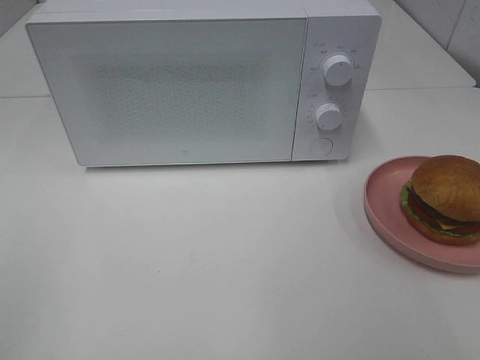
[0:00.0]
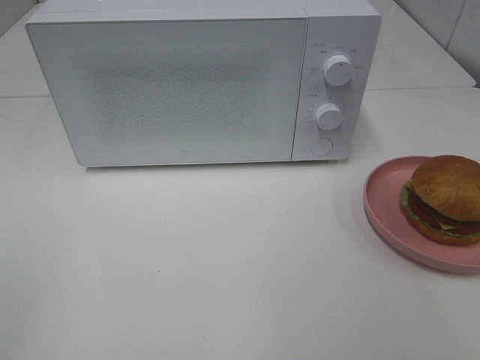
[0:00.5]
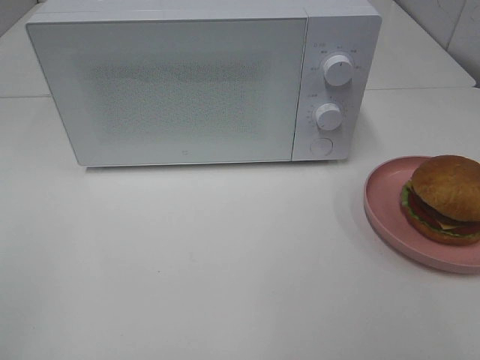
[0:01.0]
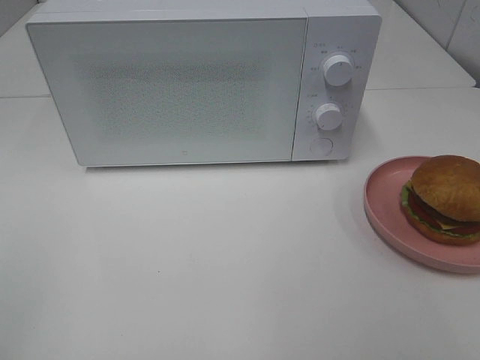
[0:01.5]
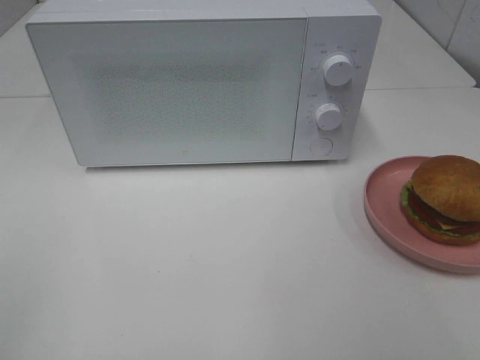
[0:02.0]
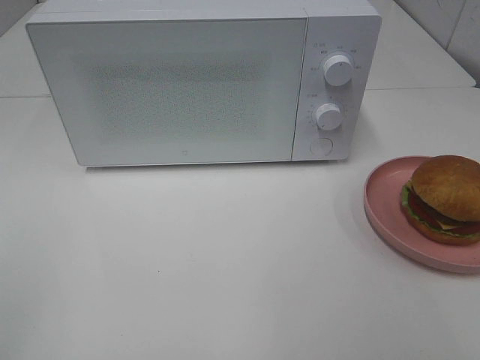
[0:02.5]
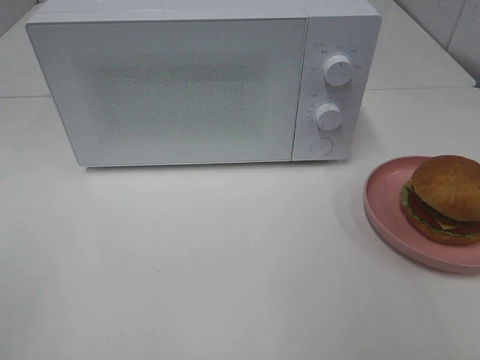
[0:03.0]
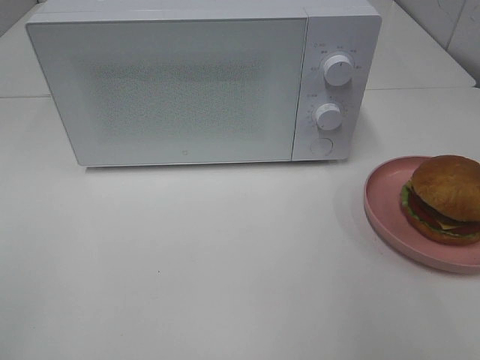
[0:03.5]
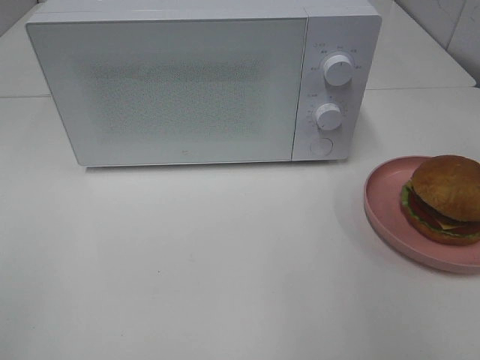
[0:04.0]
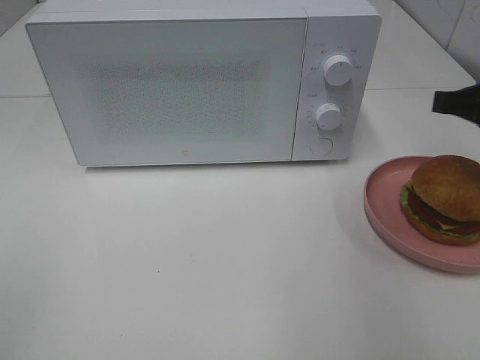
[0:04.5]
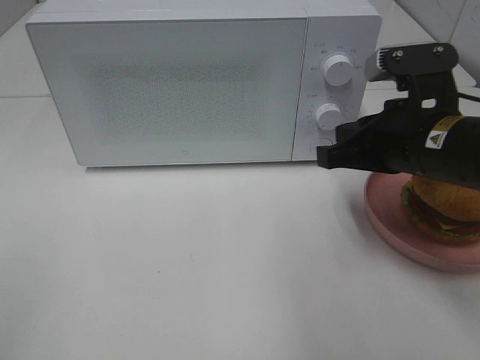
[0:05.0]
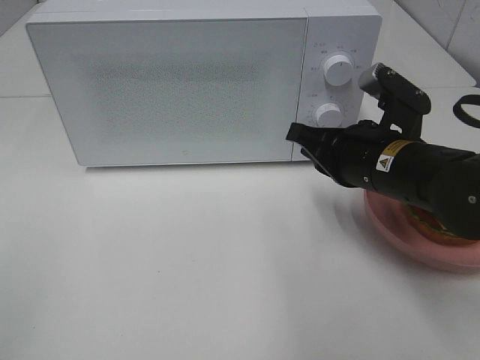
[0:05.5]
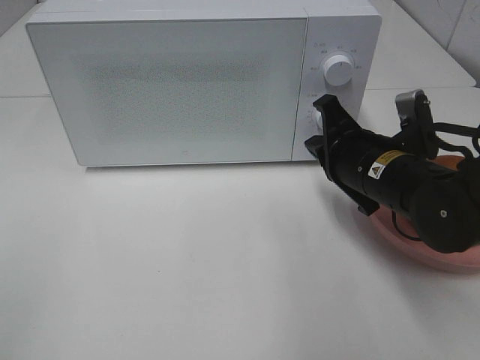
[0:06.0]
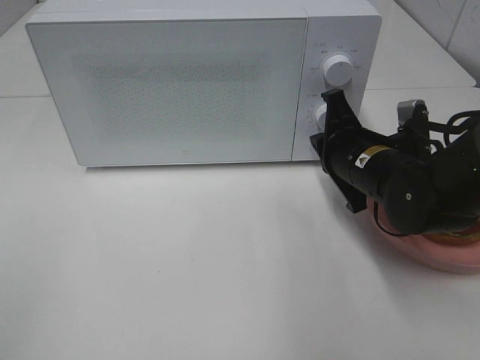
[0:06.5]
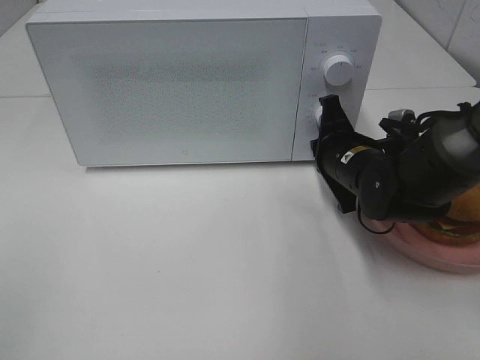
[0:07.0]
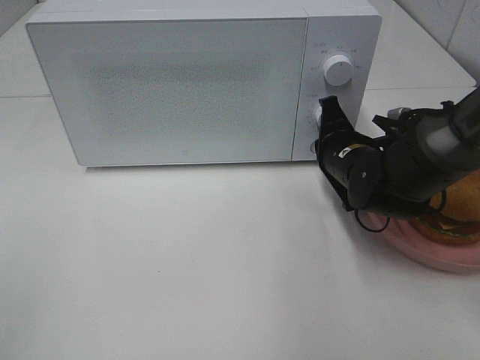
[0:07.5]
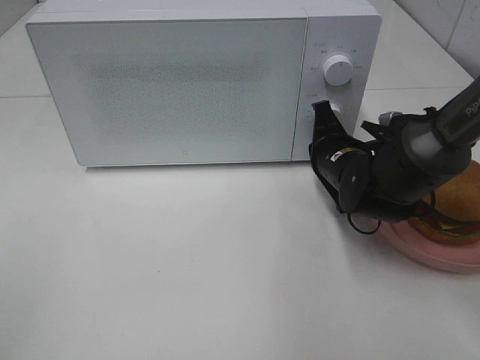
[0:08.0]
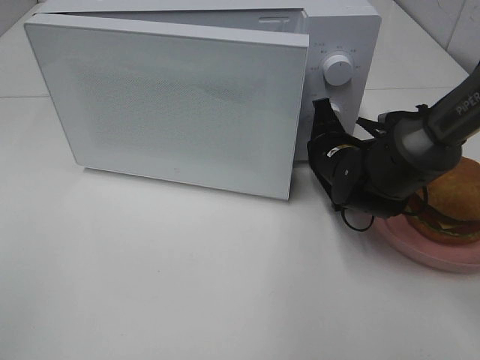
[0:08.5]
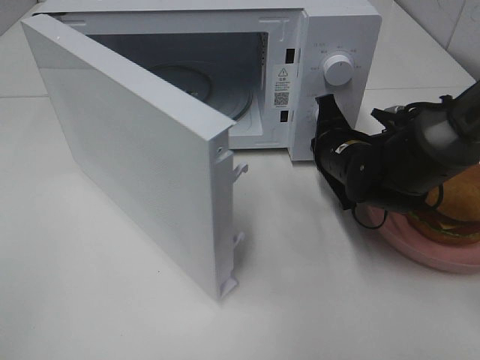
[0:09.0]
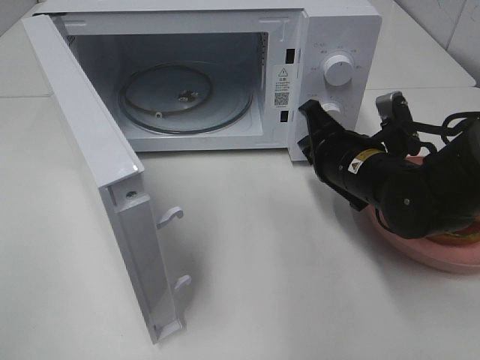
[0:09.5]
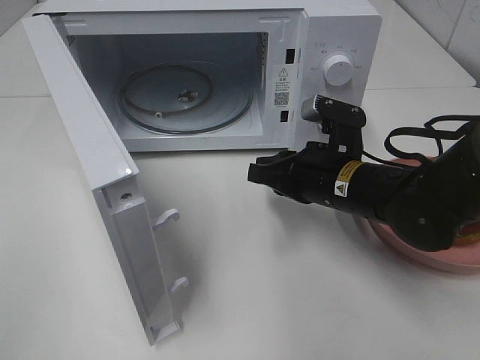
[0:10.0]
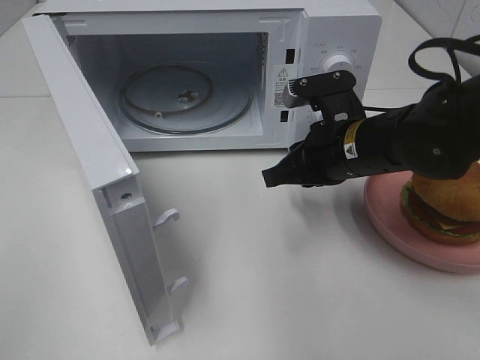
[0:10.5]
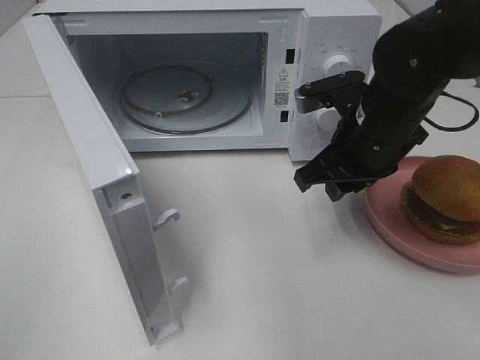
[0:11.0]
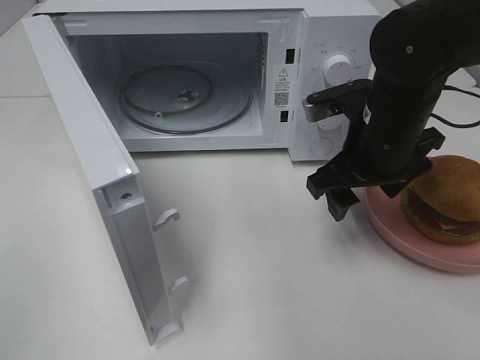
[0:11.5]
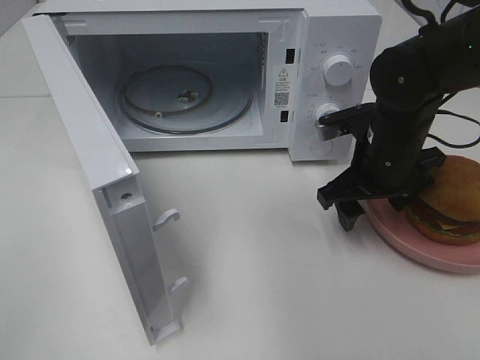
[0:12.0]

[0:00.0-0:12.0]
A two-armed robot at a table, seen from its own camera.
Task of the whole recording: Heat the burger.
Step, 0:00.0 to 0:09.0: Right hand: press the switch.
0:00.0 to 0:02.0: The two grippers keep their place.
0:04.0 to 0:06.0: The right gripper heads to the left, downward and forward, covering approximately 20 cm, and closes up.
0:06.0 to 0:08.0: The right gripper moves forward, approximately 5 cm.
0:08.0 to 0:10.0: The right gripper heads backward, covering some 5 cm.
0:10.0 to 0:12.0: The right gripper goes some 5 cm to the right, and opens up.

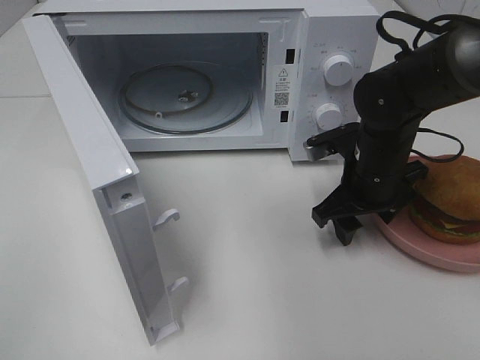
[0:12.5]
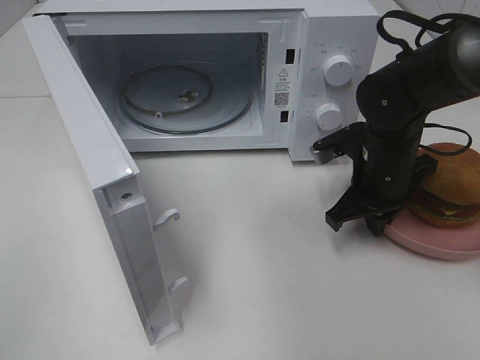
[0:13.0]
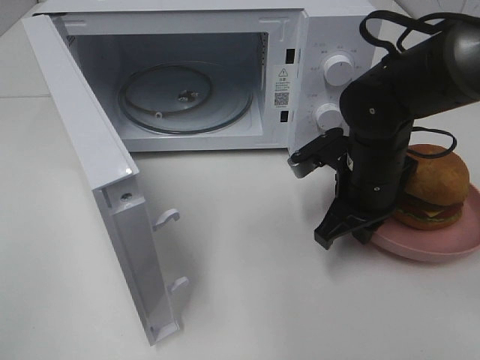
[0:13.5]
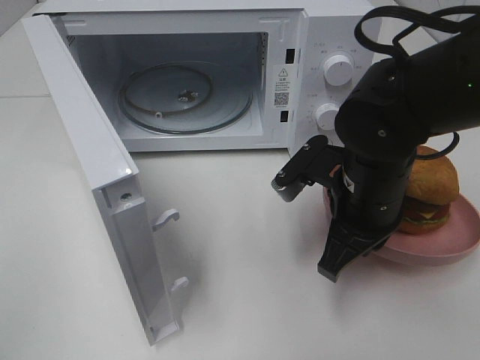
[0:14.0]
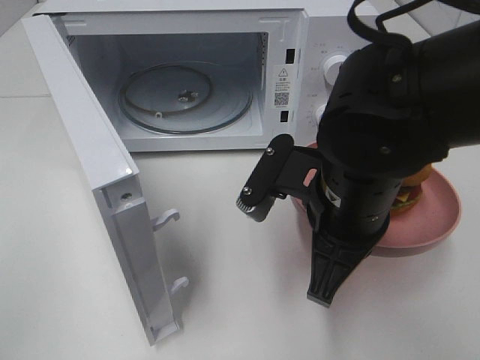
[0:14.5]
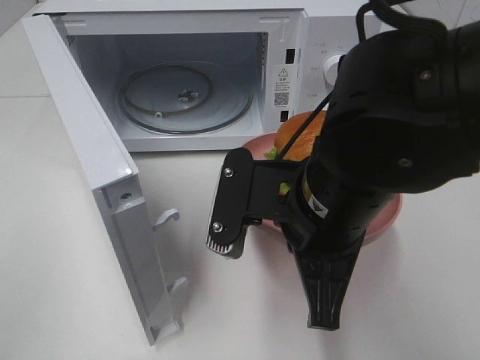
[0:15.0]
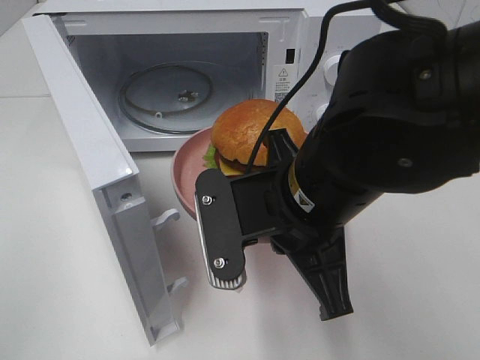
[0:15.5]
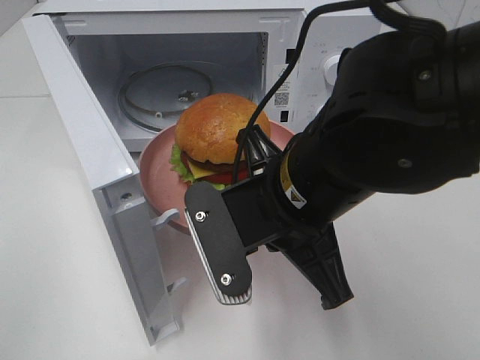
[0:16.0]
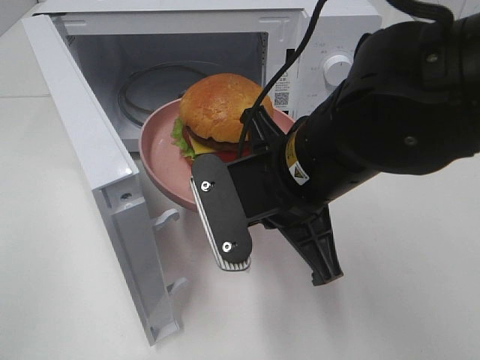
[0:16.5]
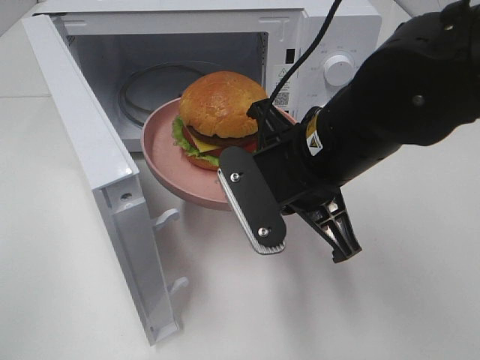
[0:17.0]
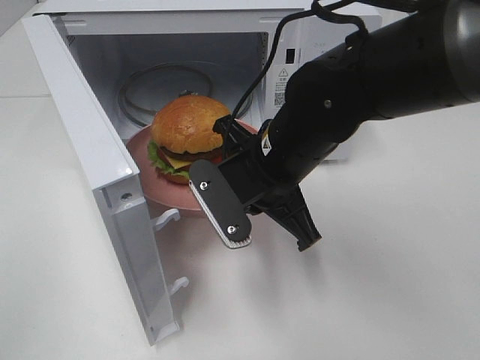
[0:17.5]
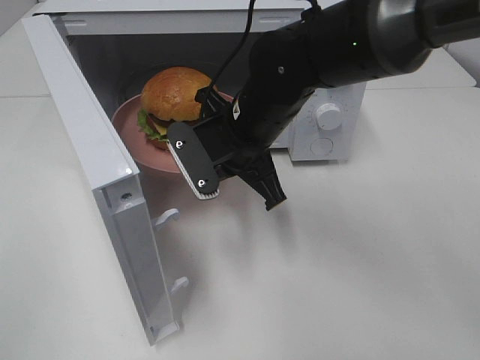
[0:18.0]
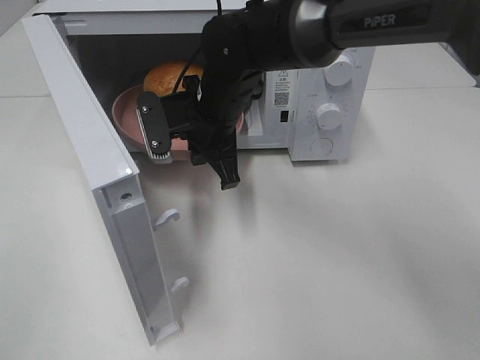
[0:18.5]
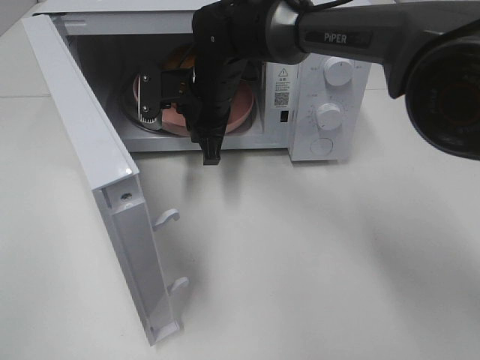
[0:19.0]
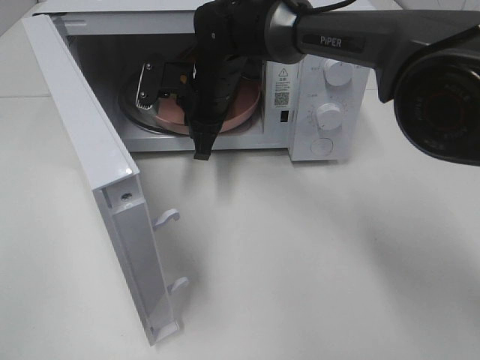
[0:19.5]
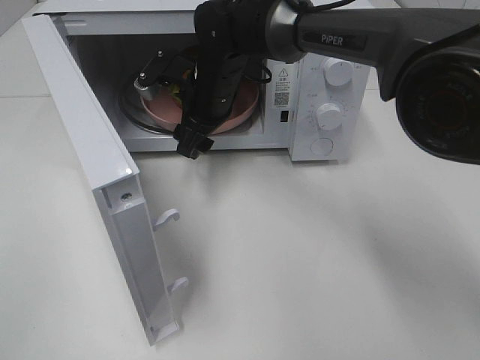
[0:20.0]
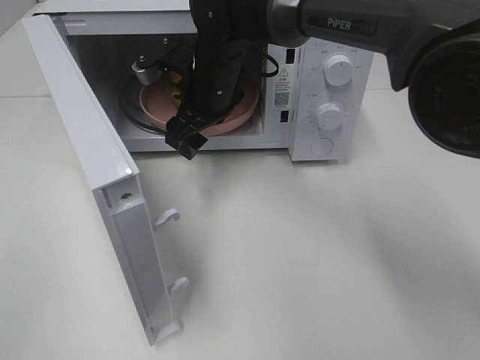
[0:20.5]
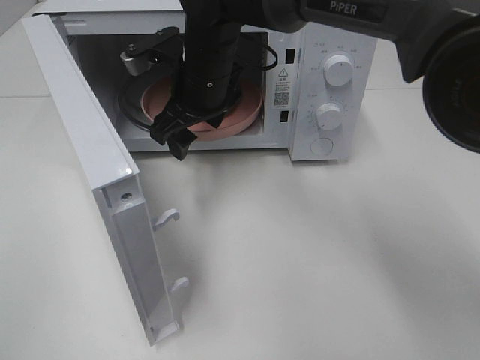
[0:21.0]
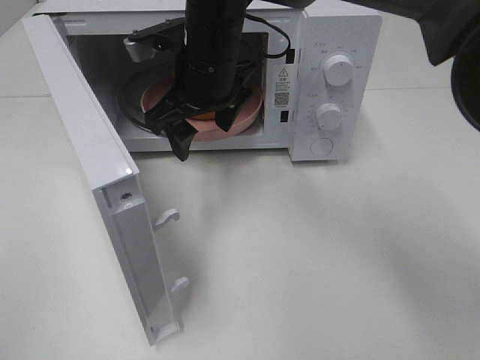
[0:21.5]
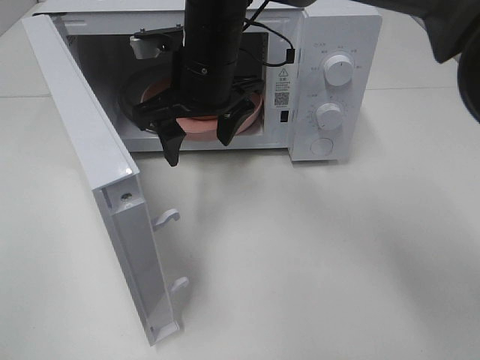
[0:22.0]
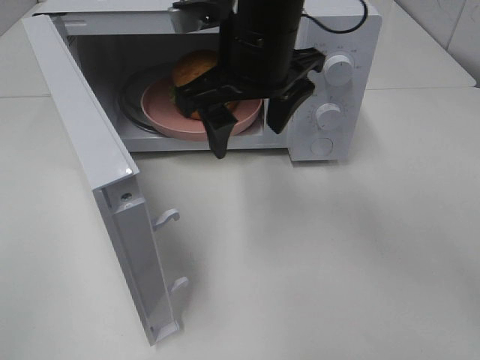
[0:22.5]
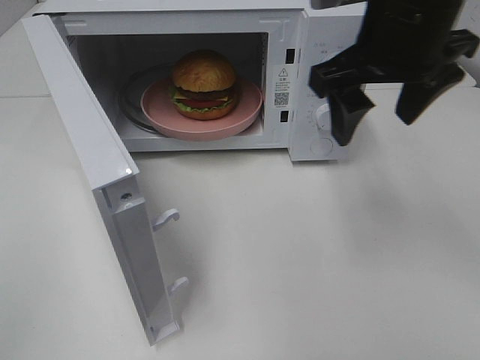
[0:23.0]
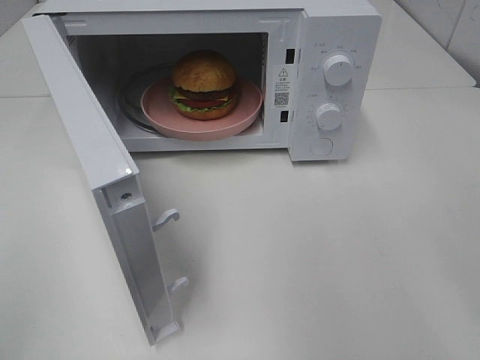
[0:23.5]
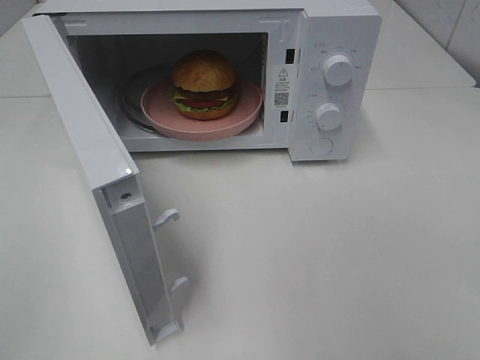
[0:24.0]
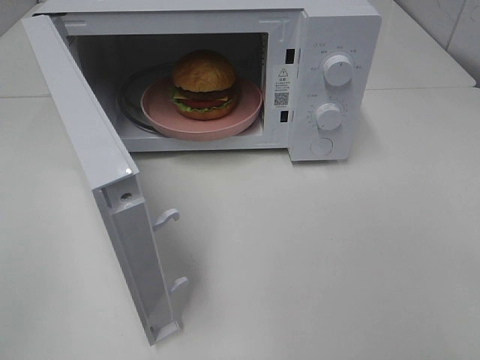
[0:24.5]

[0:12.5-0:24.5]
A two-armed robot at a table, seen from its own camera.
Task of the whole recording: Heat the burger.
Step, 0:13.0 to 0:19.5: Right hand: place the plate in the microwave.
0:12.5 to 0:14.5: The right gripper travels backward, upward and to the left by approximately 15 cm, and closes.
0:16.5 to 0:18.5: The right gripper heads forward and to the left, covering approximately 20 cm.
0:18.5 to 0:20.5: The right gripper opens up.
0:20.5 to 0:22.5: The right gripper goes approximately 15 cm upward, backward and to the right.
0:22.5 to 0:24.5: The right gripper shifts roughly 40 cm backward and to the right.

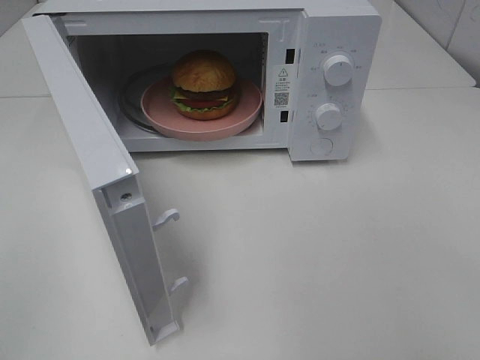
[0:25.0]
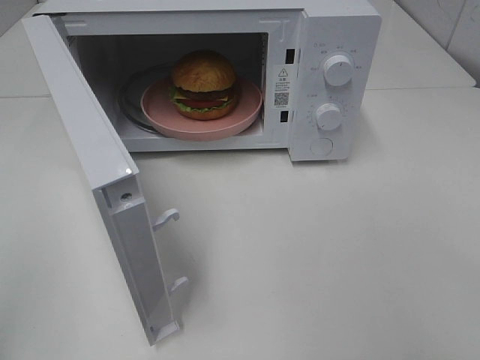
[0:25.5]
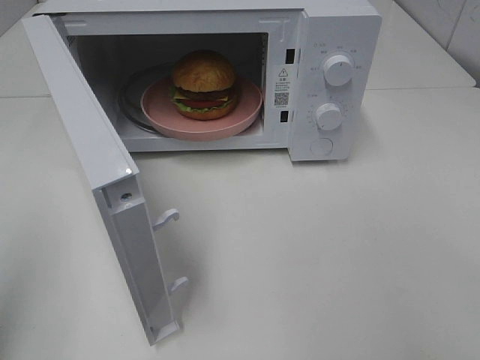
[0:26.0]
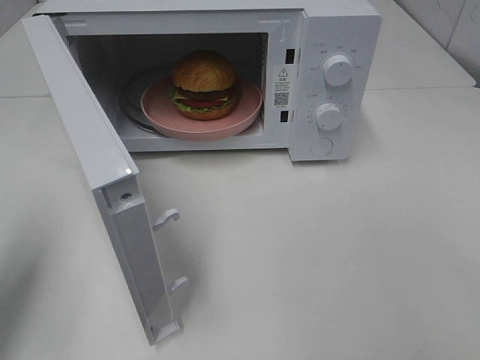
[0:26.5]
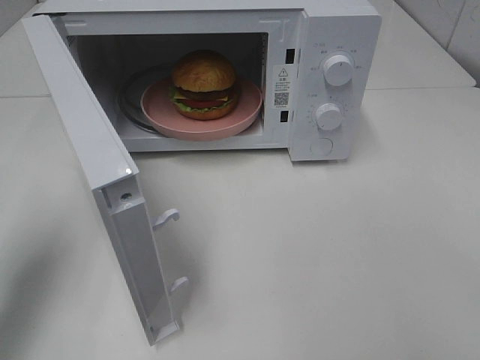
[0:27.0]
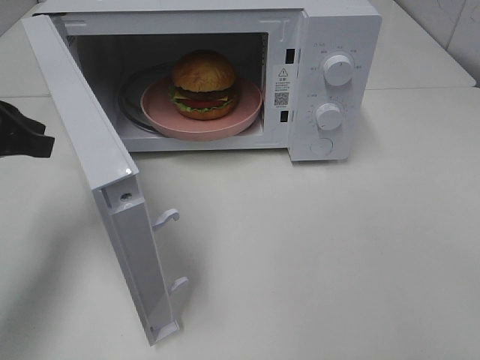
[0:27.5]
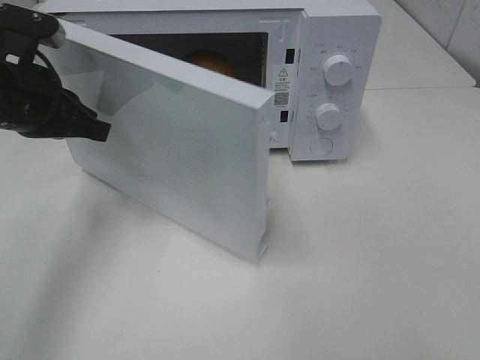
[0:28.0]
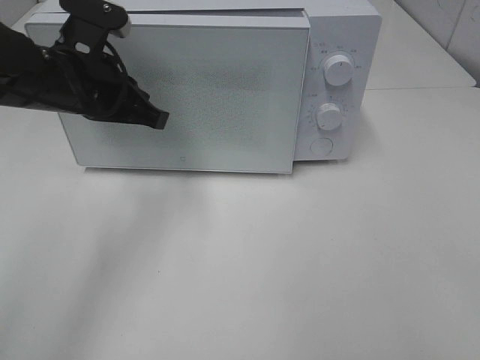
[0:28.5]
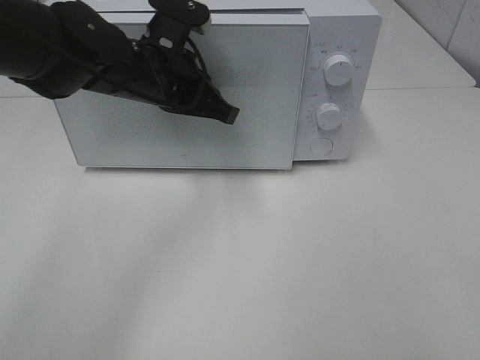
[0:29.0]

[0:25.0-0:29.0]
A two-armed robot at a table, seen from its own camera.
Task of the whole recording: Heat the burger.
0:25.0 to 0:27.0: The left gripper moves forward, approximately 20 cm.
0:27.0 to 0:29.0: The left gripper travels to the right and forward by roughly 25 cm, and opens its fingers.
